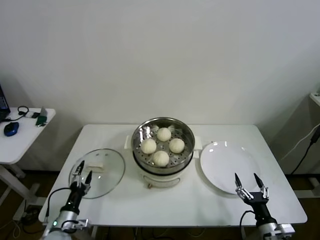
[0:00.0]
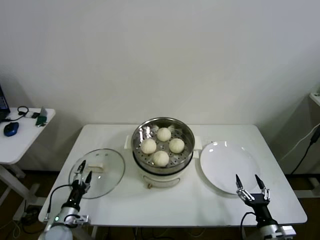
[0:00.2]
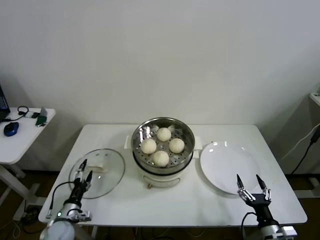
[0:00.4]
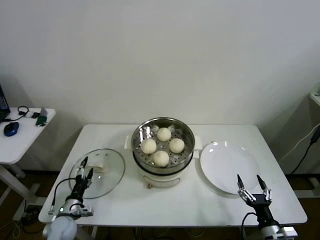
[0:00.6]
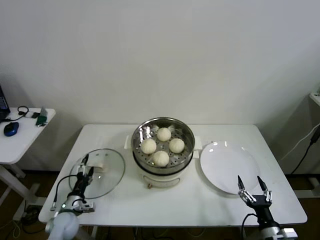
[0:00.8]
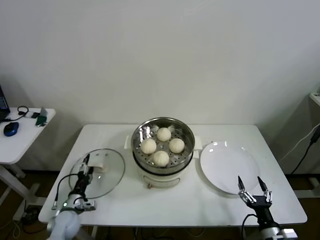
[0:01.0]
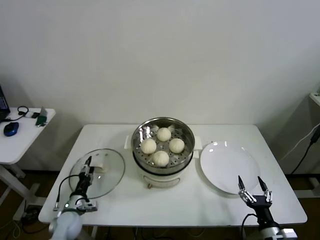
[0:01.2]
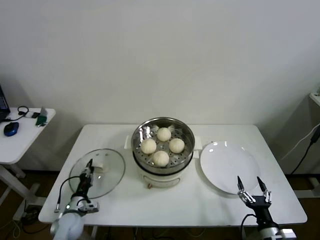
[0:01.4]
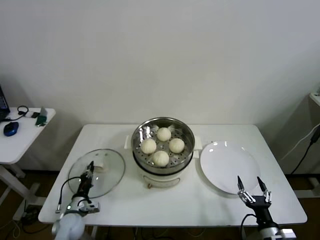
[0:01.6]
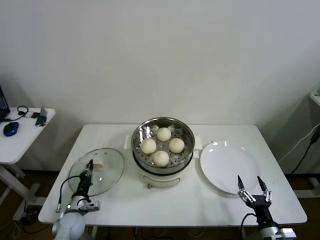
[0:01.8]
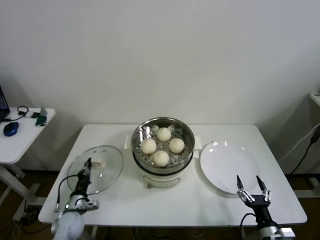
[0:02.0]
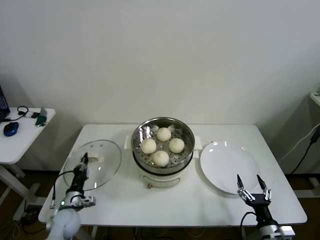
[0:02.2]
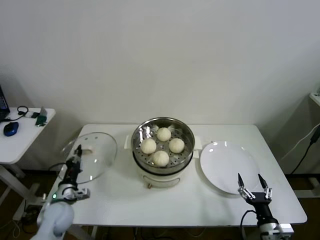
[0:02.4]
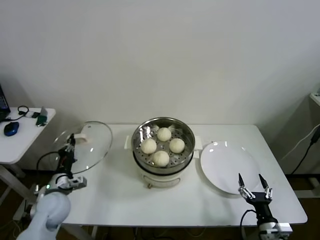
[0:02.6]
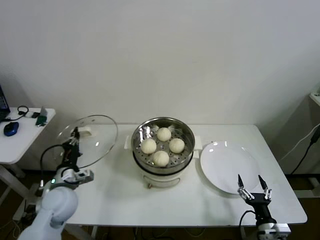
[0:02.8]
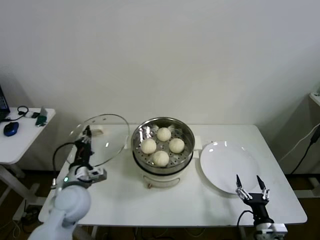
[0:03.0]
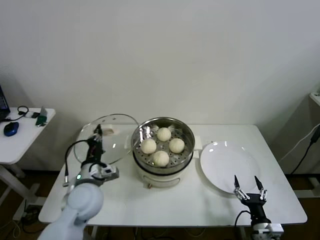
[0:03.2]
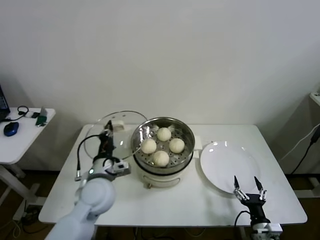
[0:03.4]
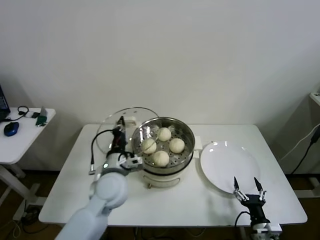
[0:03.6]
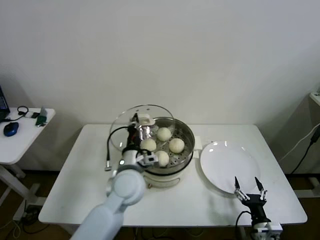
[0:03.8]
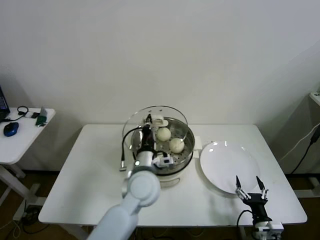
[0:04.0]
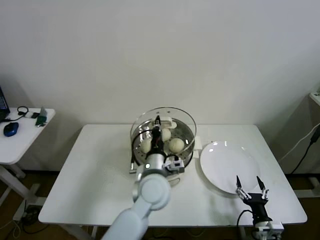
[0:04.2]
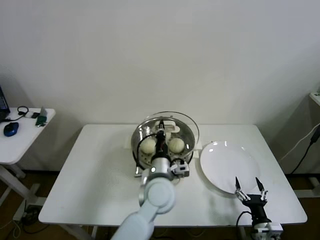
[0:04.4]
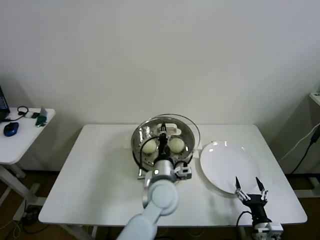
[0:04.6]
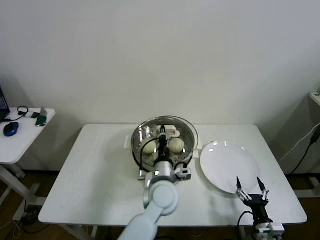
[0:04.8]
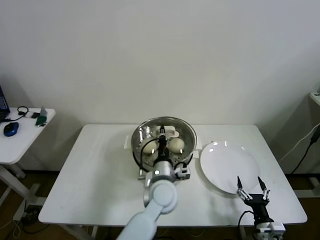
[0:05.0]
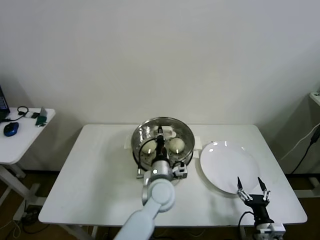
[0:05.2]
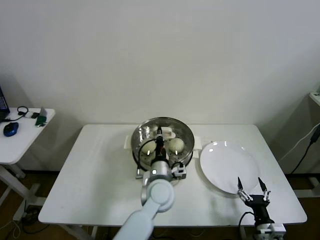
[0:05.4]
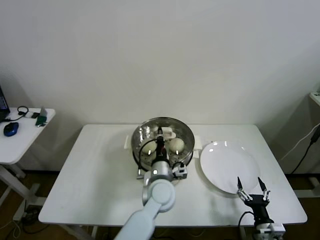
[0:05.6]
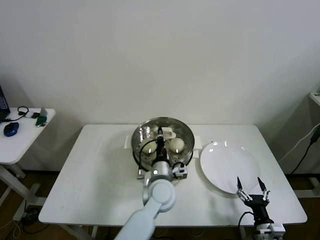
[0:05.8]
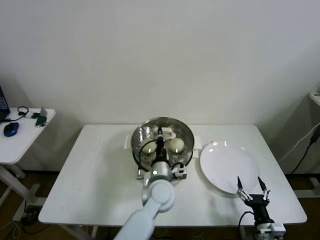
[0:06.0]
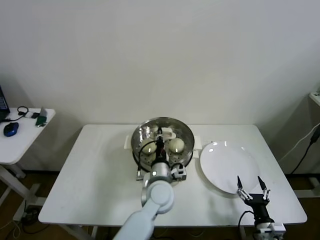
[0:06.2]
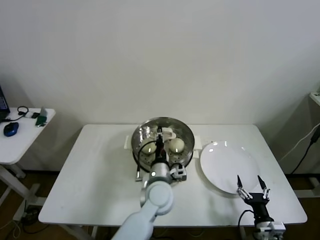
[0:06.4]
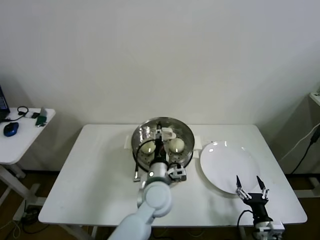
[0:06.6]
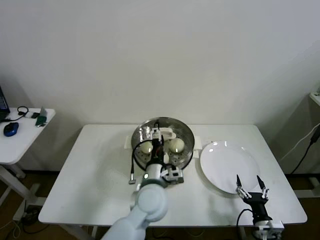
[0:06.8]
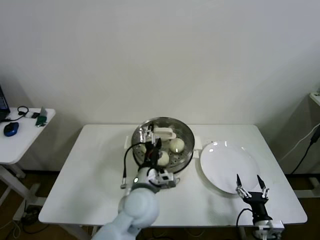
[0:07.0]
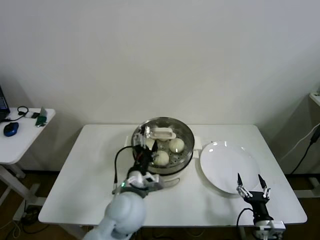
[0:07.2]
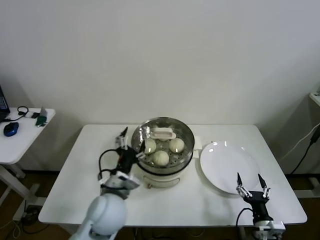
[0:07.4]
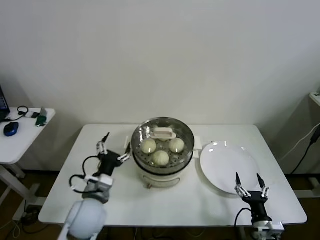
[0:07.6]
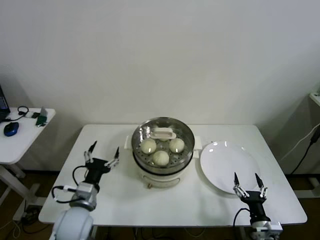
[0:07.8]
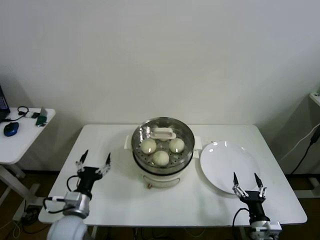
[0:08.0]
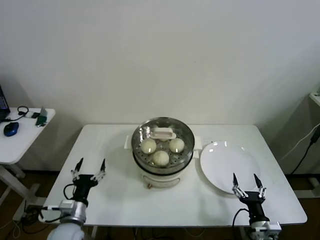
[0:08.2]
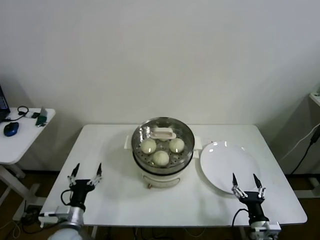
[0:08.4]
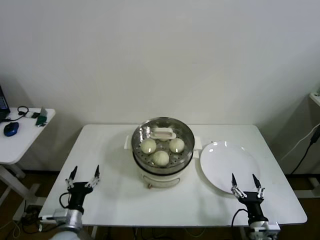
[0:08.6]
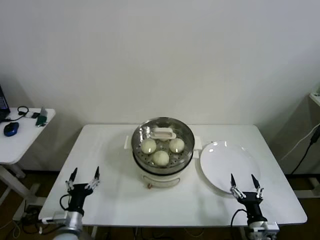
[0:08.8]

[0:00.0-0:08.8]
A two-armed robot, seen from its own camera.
Step, 0:01.8 to 0:06.2: Place the pot lid on the steamer with left gripper.
0:00.0 to 0:01.4: The left gripper shifts roughly 5 cm forward, and closes.
0:01.4 to 0:03.0: The left gripper travels upward by about 20 cm, and closes up.
0:03.0 to 0:04.4: The left gripper heads to the right, covering about 25 cm.
0:04.4 to 0:05.8: The left gripper shifts about 5 cm downward.
0:05.8 to 0:07.4: The left gripper goes roughly 15 cm to the left, backward and upward, and opens up.
0:07.4 to 0:08.8: The left gripper is displaced to the left and downward by roughly 25 cm.

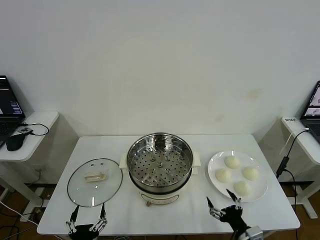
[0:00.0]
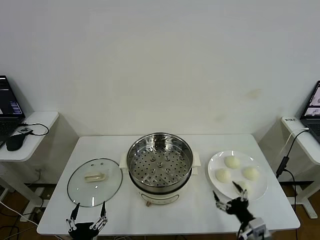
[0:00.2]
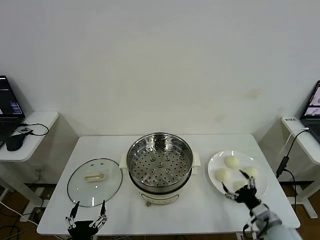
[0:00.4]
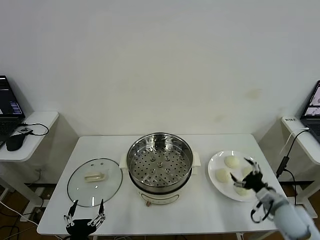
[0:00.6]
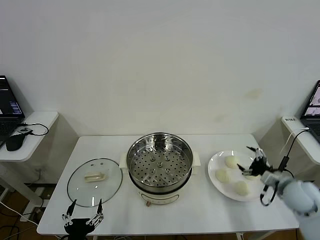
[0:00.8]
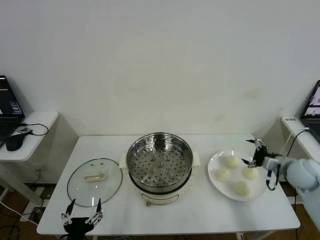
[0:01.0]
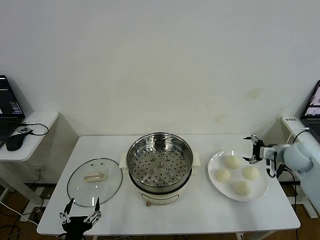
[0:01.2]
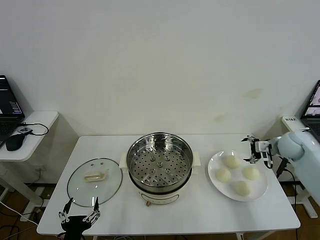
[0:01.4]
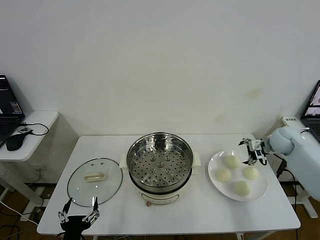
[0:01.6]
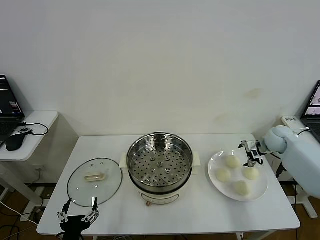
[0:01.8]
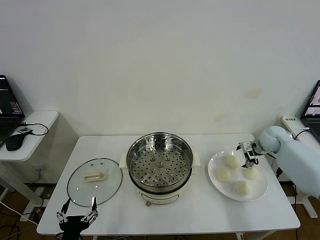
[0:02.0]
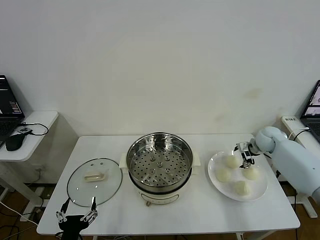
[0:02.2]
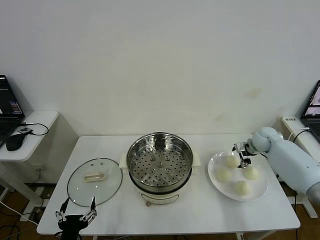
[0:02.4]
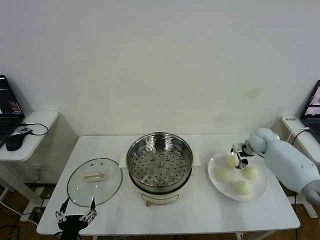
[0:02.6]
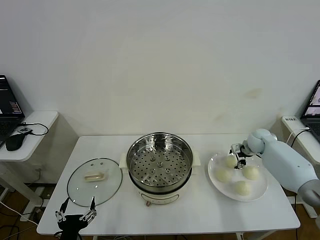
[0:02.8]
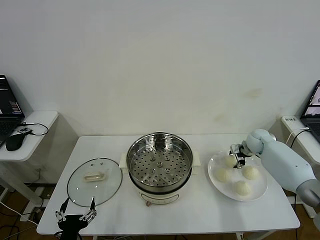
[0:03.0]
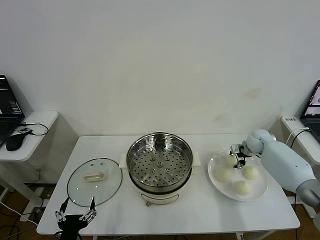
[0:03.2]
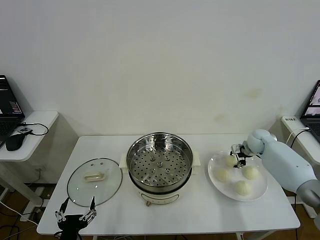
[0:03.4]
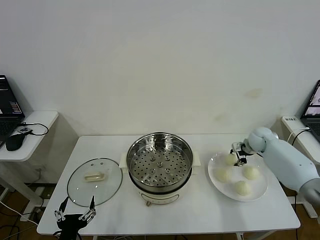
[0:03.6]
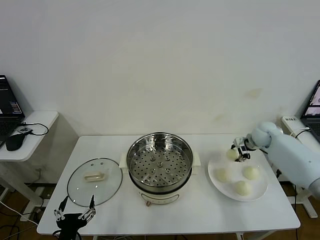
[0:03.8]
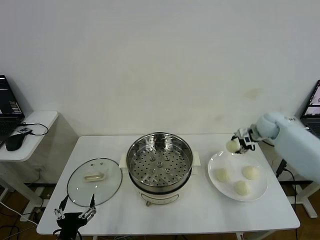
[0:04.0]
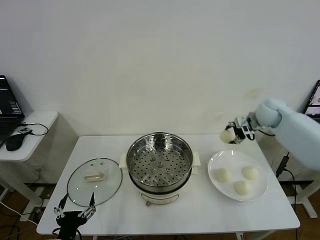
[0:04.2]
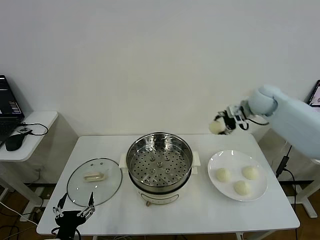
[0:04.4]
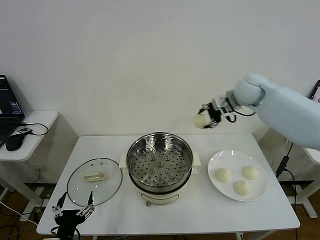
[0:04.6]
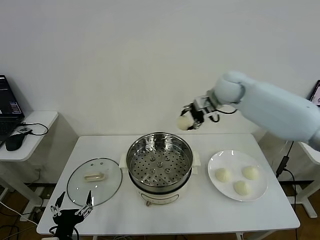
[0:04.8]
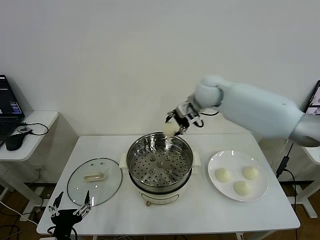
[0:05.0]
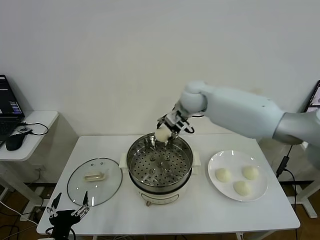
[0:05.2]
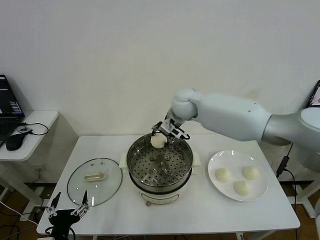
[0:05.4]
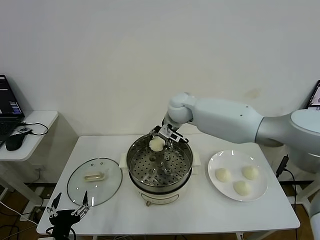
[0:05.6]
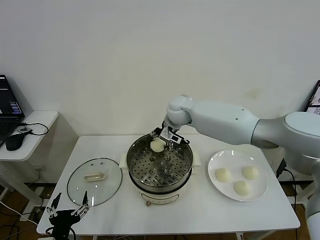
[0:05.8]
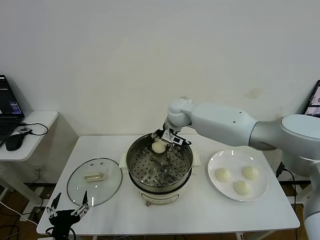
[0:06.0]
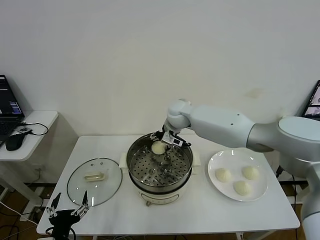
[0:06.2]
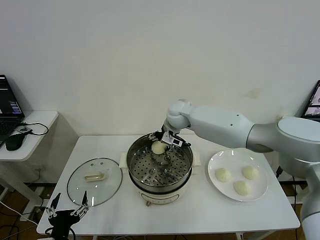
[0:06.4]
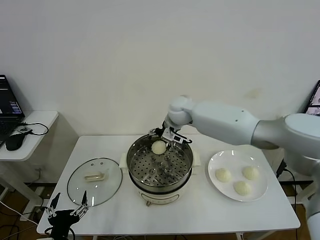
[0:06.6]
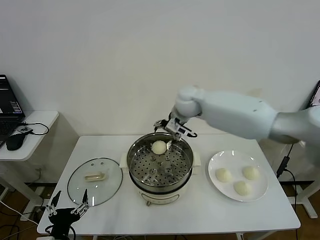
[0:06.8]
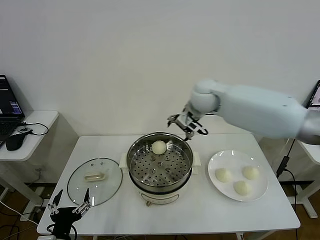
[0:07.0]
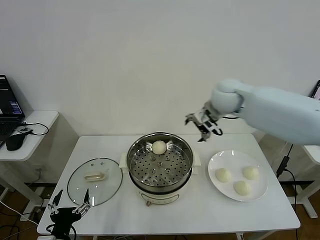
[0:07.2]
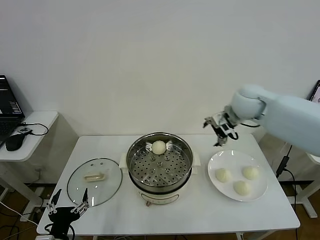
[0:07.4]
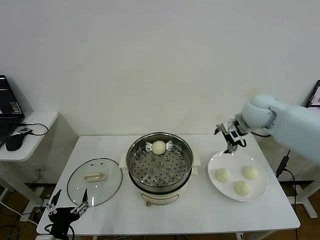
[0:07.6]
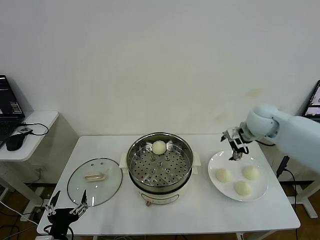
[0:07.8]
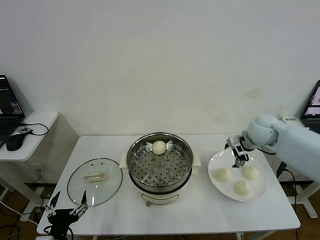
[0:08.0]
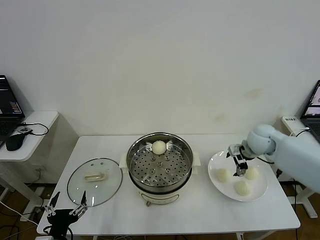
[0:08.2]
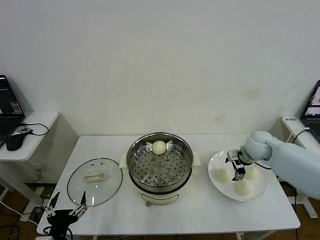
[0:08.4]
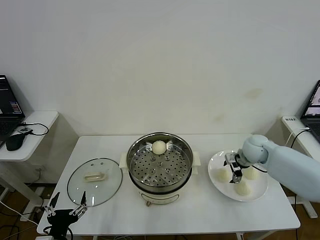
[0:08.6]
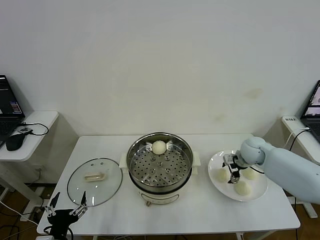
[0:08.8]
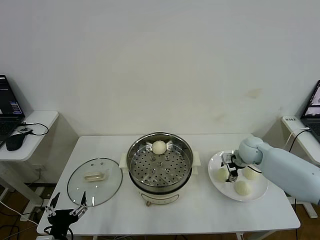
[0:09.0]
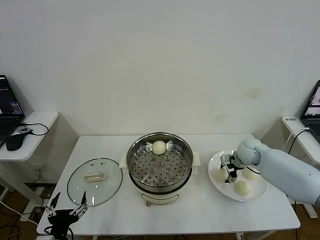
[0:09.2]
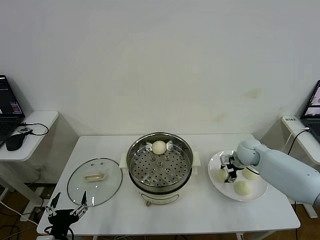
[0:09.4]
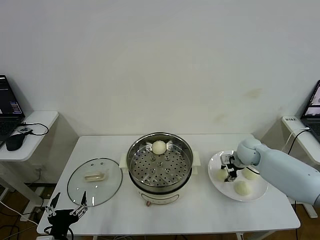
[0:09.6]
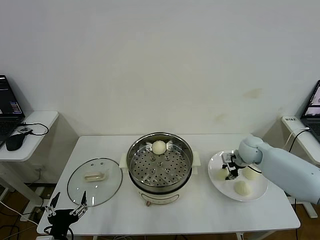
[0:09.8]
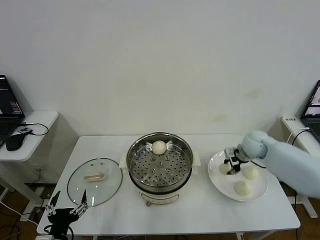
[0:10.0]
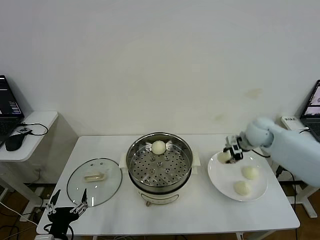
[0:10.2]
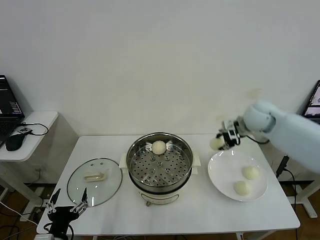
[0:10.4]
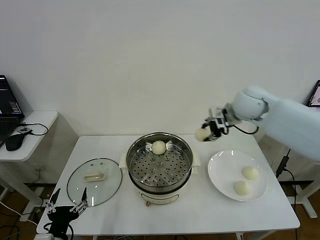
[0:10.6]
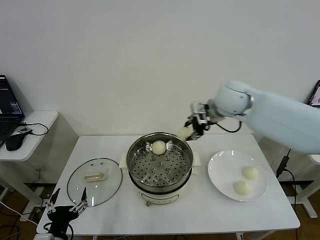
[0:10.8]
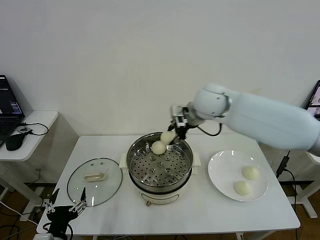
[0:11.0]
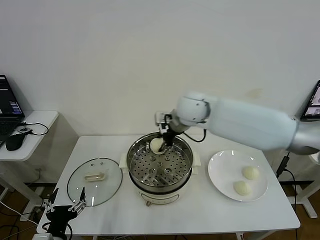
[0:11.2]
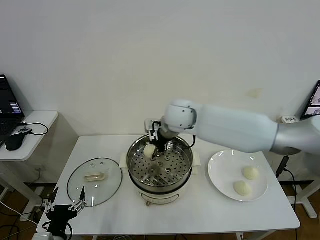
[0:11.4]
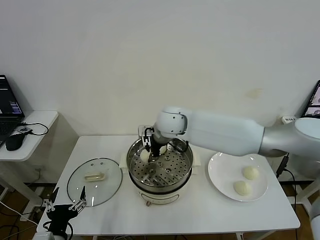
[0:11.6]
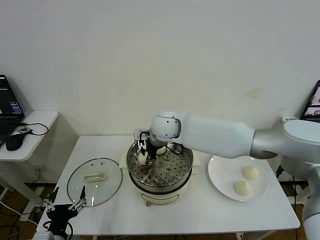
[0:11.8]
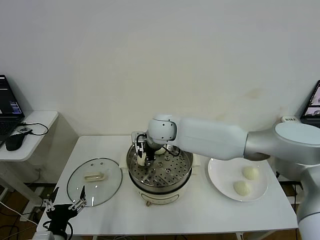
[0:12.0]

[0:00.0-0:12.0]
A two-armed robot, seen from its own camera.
Step, 0:00.0 to 0:03.4: Grasp the baozi in the plate with right gripper.
Step, 0:03.6 to 0:06.4: Place the baozi on the steamer with right gripper.
Step, 0:06.6 to 0:09.4: Grasp the baozi in the plate with right gripper.
0:01.6 to 0:03.0: The right gripper heads downward, covering roughly 5 cm, and closes its fingers.
0:03.0 to 0:04.4: The right gripper shifts approximately 25 cm upward and to the left.
0:04.4 to 0:06.0: The right gripper goes approximately 25 cm to the left.
0:06.0 to 0:07.6: The right gripper heads to the right, covering approximately 25 cm, and opens up.
0:07.6 to 0:09.0: The right gripper travels downward by about 15 cm.
0:09.0 to 0:10.4: The right gripper heads upward, covering roughly 20 cm, and closes.
0:10.4 to 0:12.0: The right gripper goes approximately 30 cm to the left.

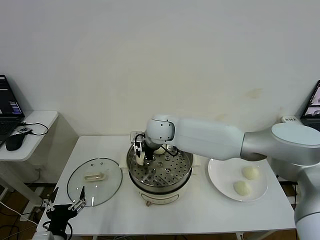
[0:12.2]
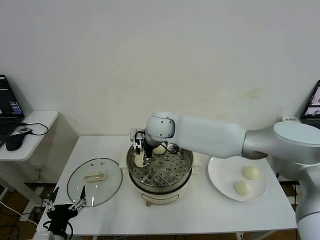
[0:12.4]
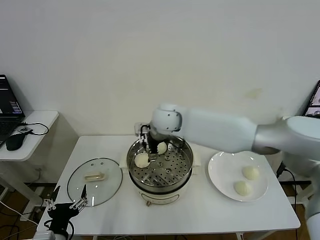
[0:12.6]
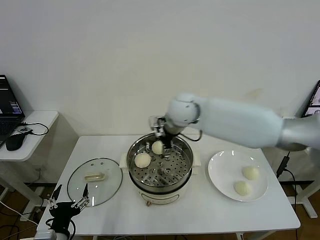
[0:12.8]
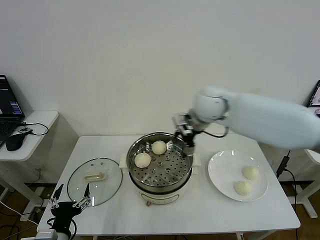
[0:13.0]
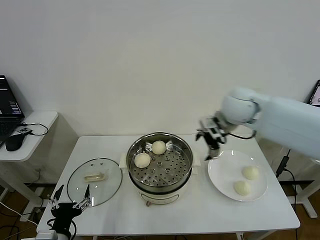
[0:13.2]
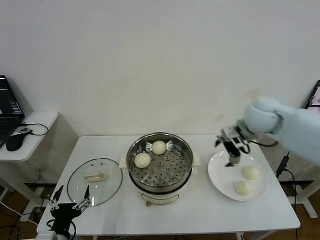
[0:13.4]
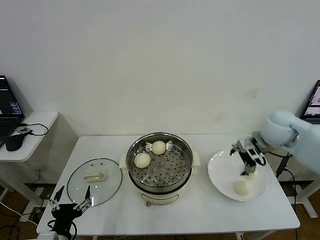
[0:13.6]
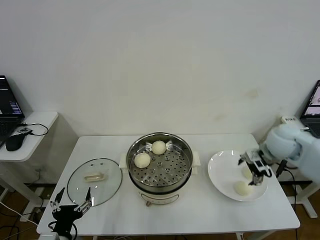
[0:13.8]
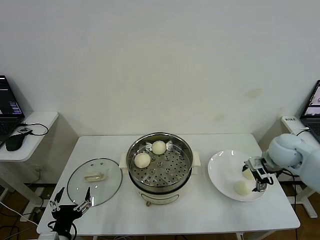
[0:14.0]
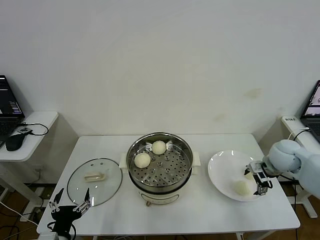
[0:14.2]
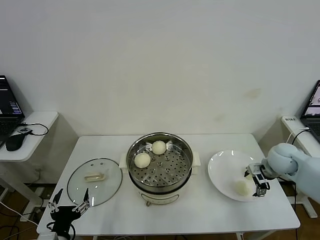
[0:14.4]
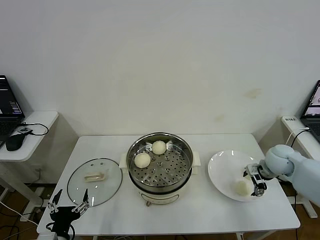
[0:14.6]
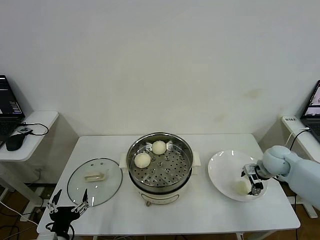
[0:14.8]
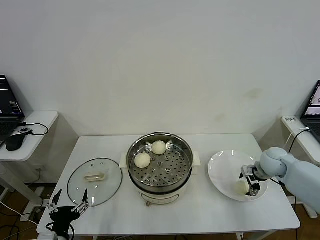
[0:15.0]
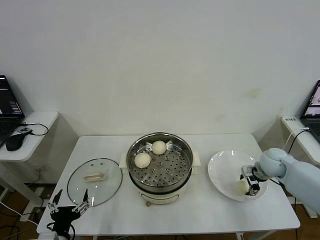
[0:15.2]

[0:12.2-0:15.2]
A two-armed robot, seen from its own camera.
0:12.2 to 0:13.8: The right gripper travels to the right by roughly 40 cm, and opens its fingers.
0:13.8 to 0:15.2: The right gripper is displaced downward by some 10 cm, and closes up.
